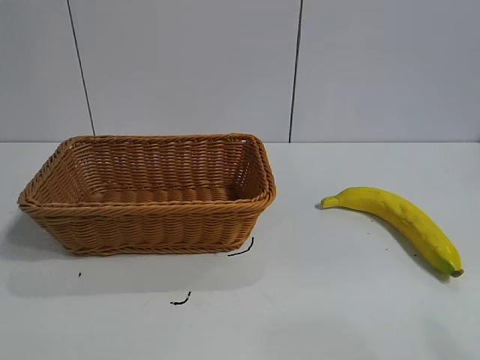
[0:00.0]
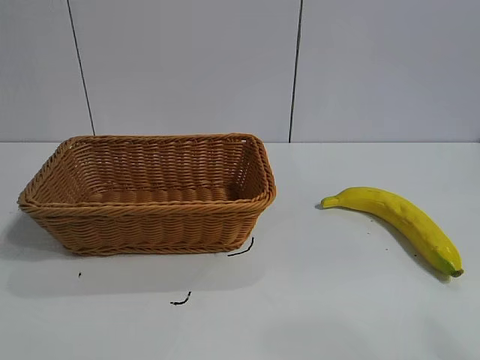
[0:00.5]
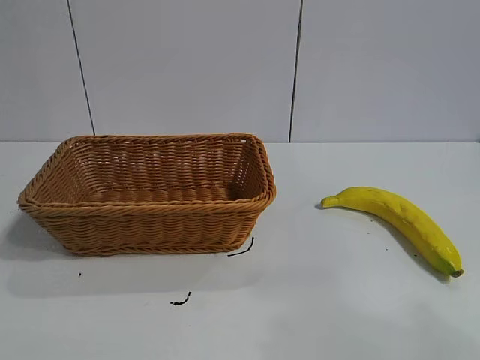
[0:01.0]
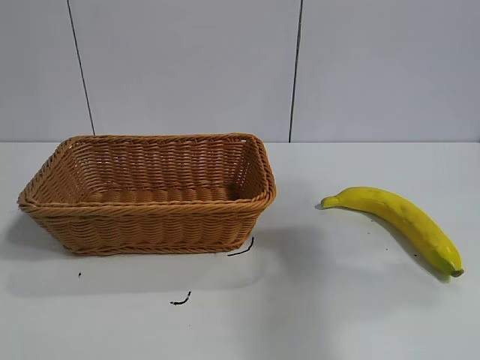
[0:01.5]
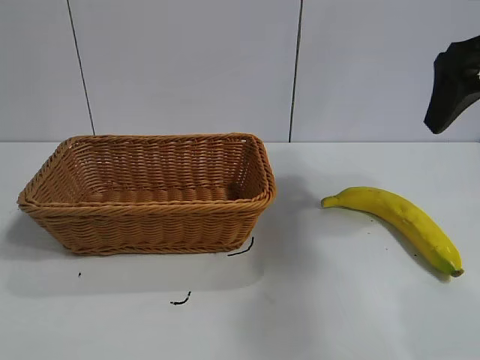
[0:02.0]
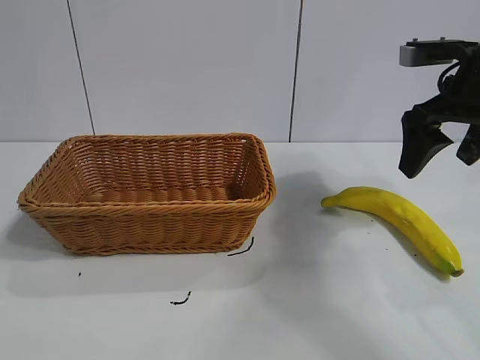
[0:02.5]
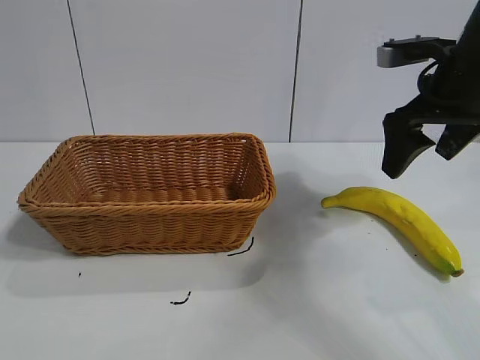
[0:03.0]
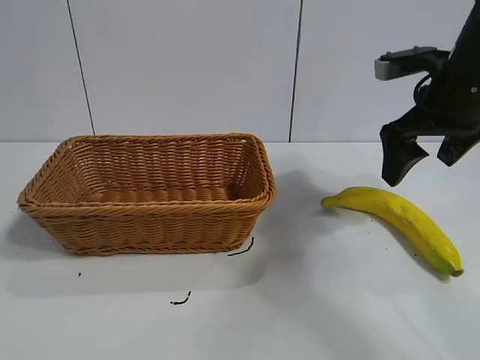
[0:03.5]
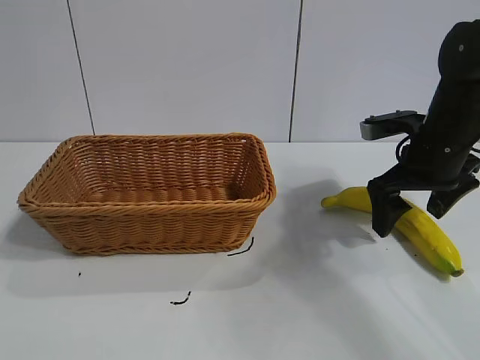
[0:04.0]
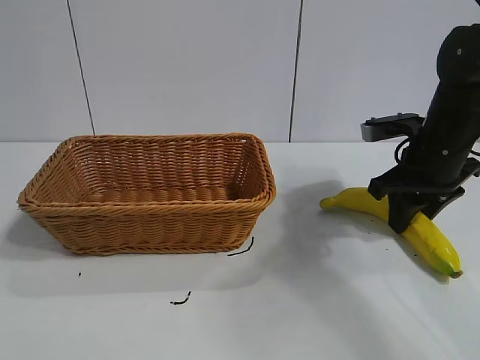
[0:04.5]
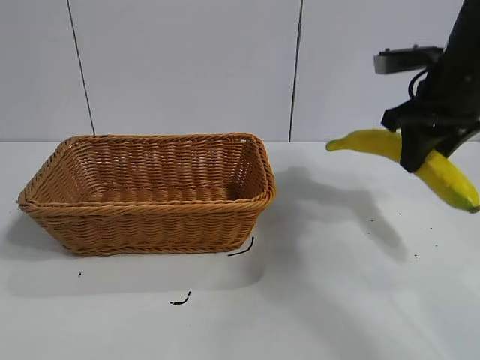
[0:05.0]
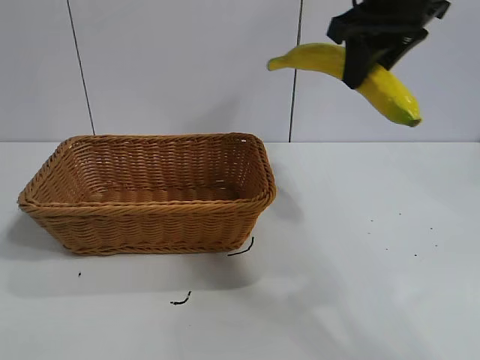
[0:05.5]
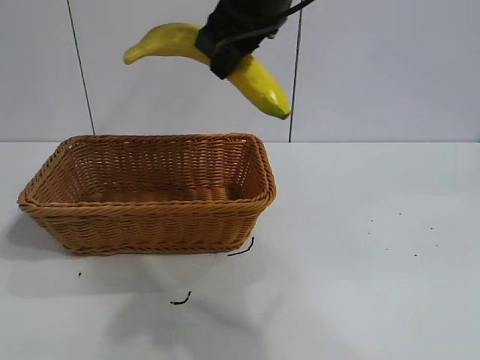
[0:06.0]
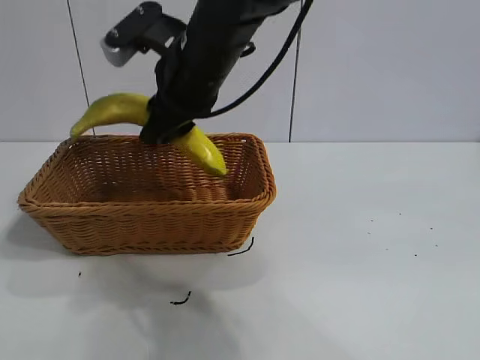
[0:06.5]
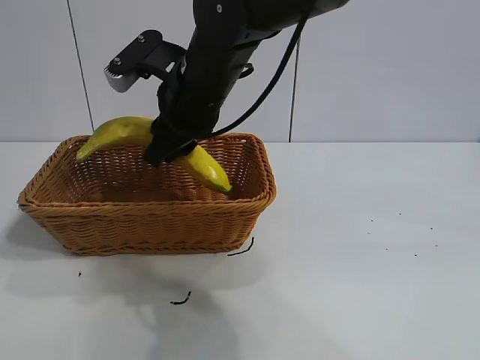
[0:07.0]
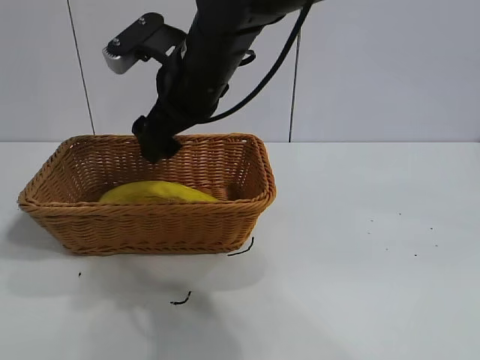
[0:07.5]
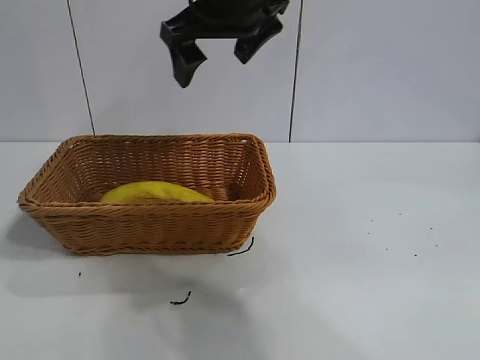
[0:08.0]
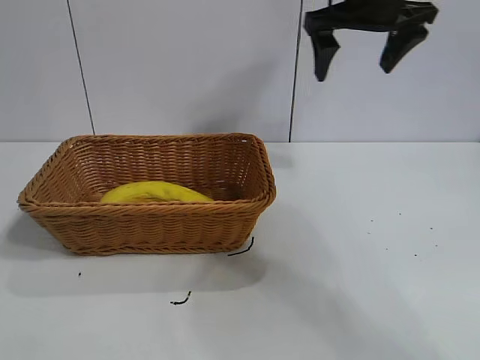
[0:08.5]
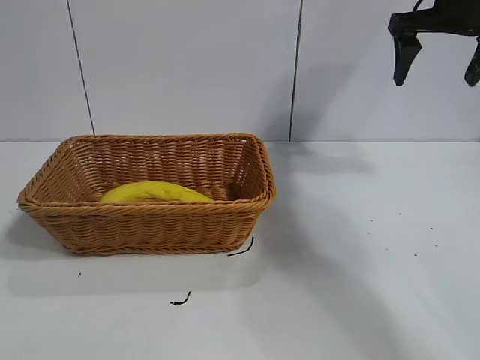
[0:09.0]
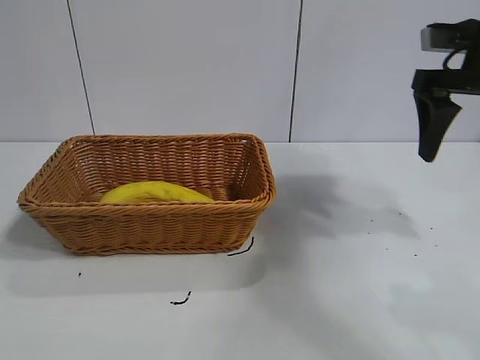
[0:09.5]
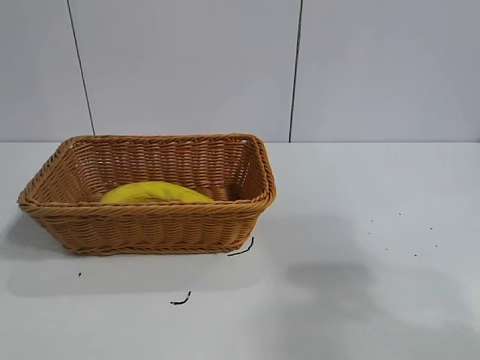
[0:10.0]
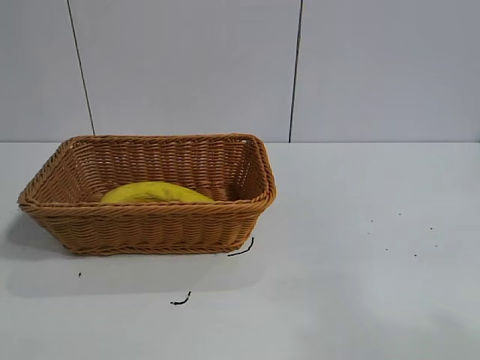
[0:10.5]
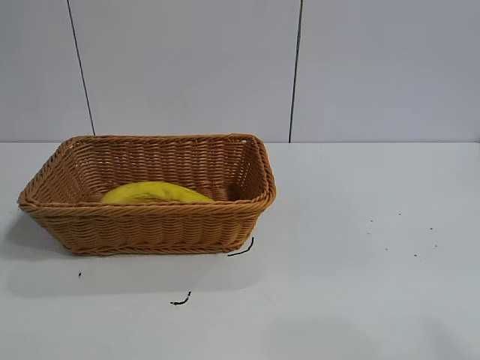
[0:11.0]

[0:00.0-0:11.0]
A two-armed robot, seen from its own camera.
Task of the whole recording: pick up the banana and put it into the basket.
Step, 0:02.0 to 0:04.5: Grasp the banana with right gripper.
Step, 0:05.0 to 0:07.0: Place the banana in the basket with right gripper.

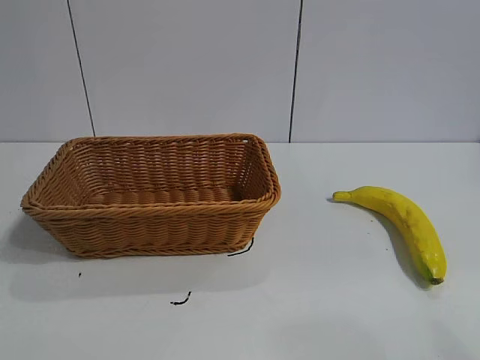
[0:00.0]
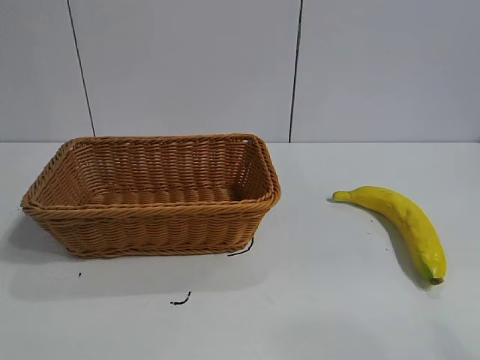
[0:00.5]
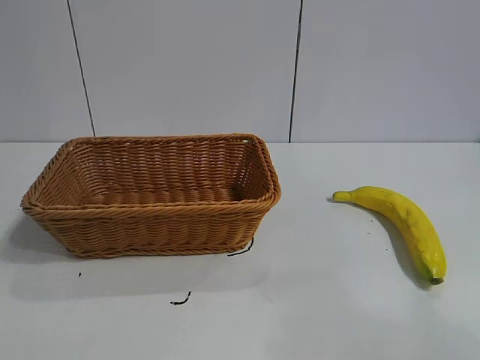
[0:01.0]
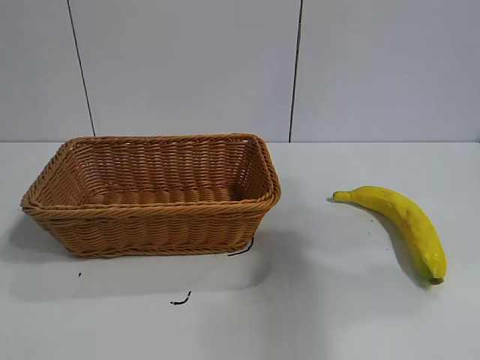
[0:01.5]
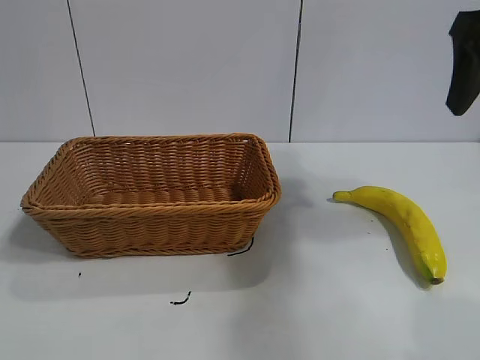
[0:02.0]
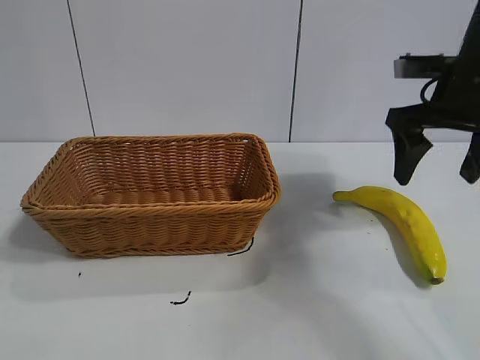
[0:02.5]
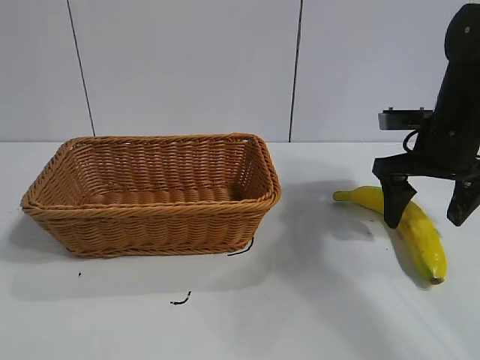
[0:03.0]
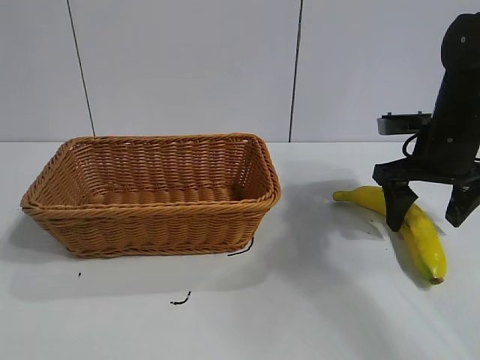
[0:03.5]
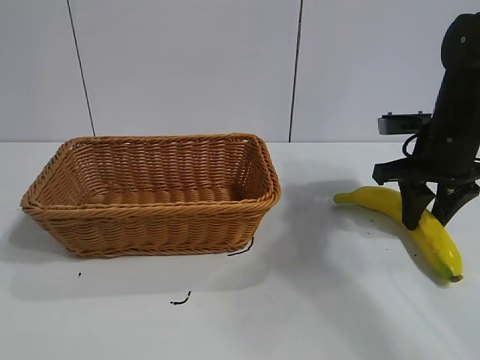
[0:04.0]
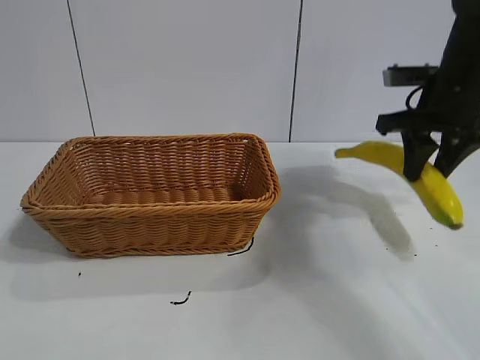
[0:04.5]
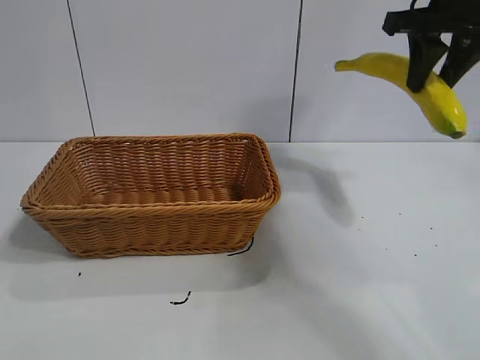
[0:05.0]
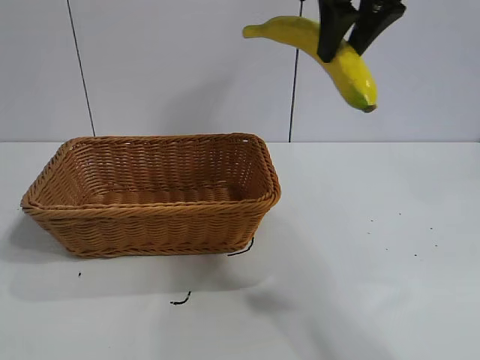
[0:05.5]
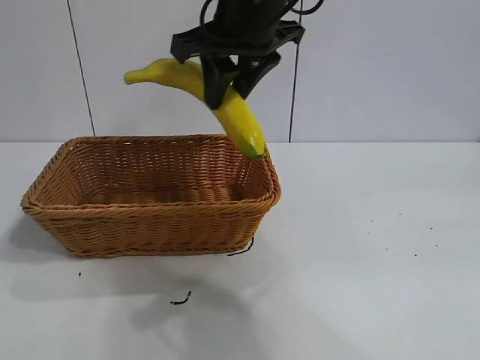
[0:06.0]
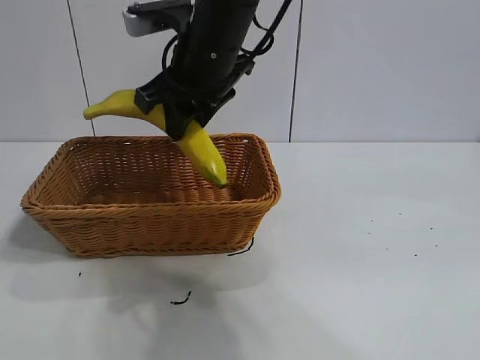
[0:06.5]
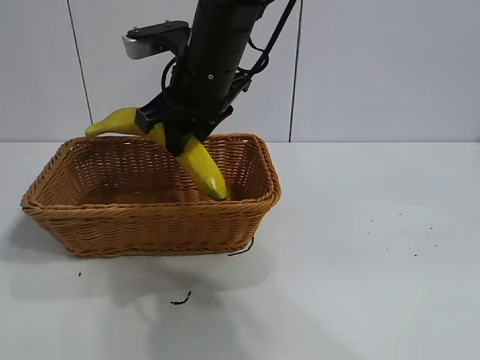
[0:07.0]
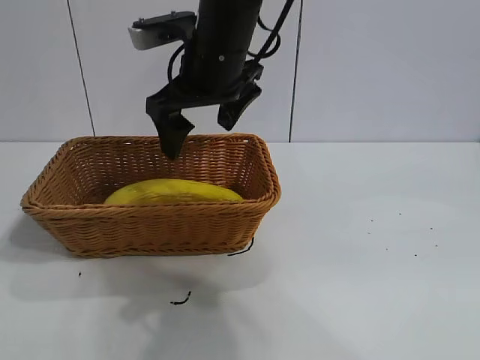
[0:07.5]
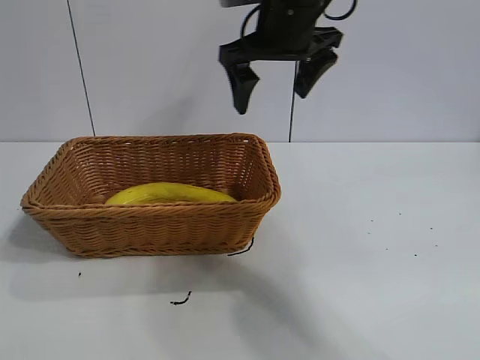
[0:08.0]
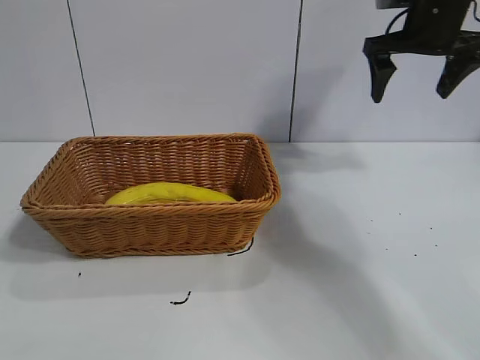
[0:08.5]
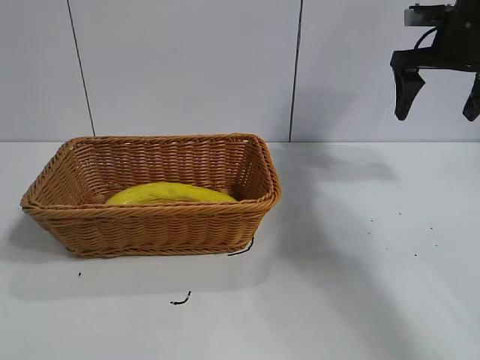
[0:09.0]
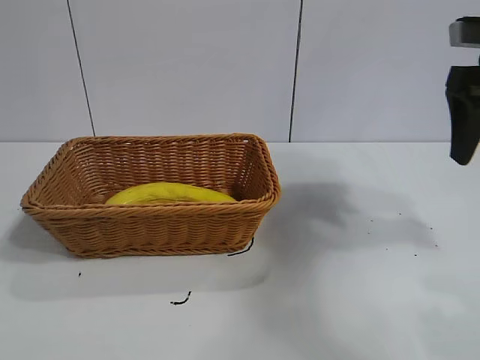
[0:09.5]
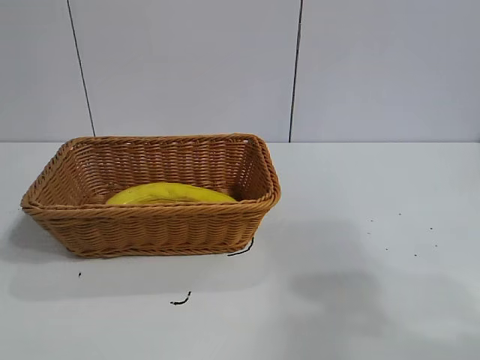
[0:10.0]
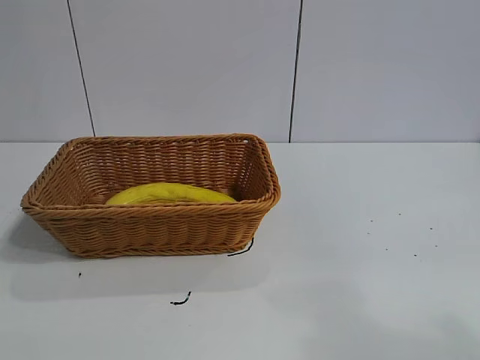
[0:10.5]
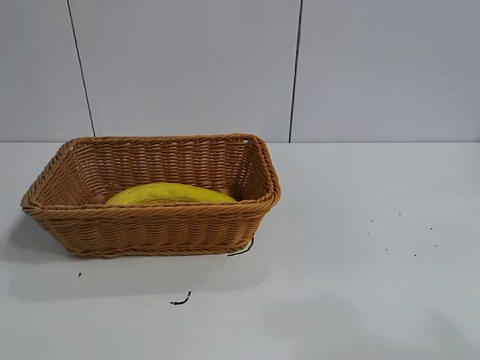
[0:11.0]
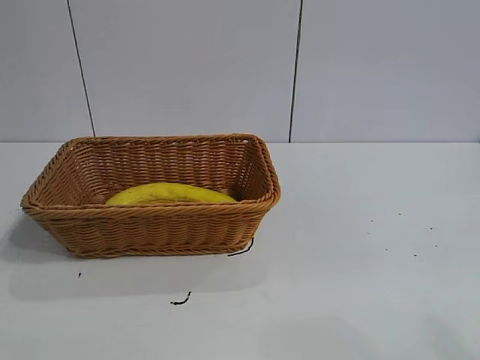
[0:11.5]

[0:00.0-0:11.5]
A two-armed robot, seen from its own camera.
Task of the whole recording: pick up the banana and put it into the basket.
Step, 0:02.0 to 0:04.0: Grasp the banana with right gripper.
Step, 0:04.5 to 0:07.0: Place the banana in the basket with right gripper.
